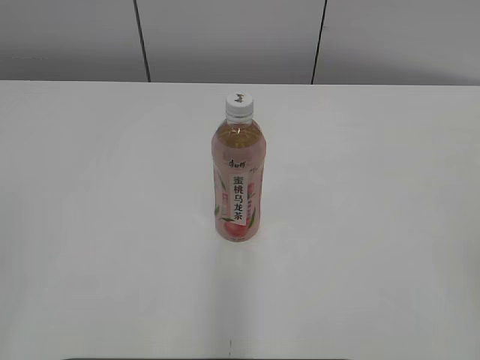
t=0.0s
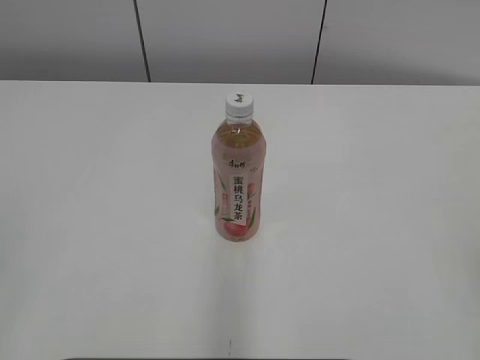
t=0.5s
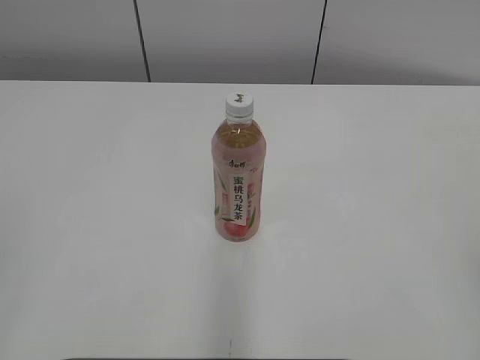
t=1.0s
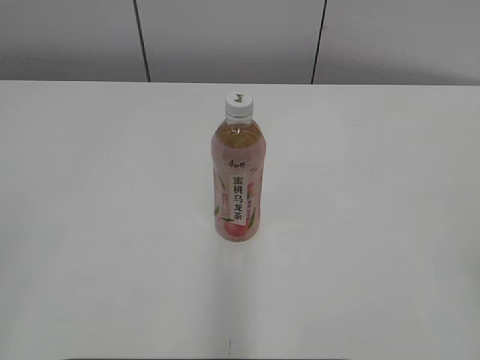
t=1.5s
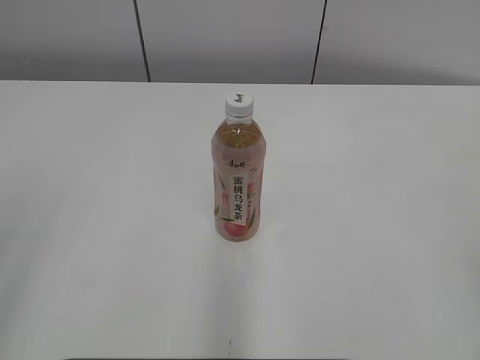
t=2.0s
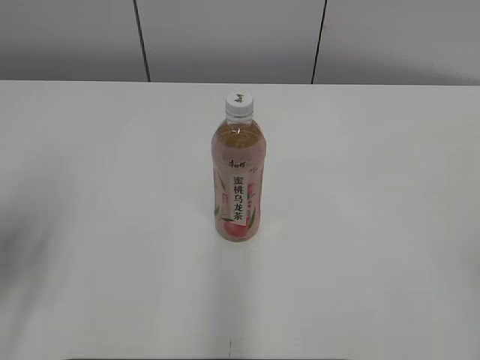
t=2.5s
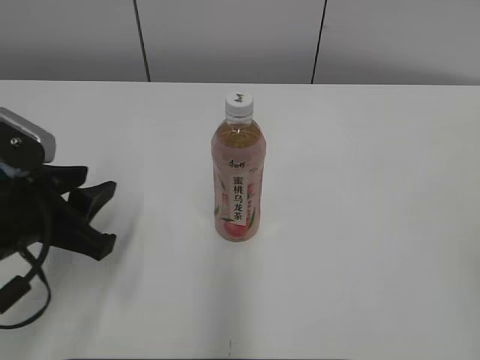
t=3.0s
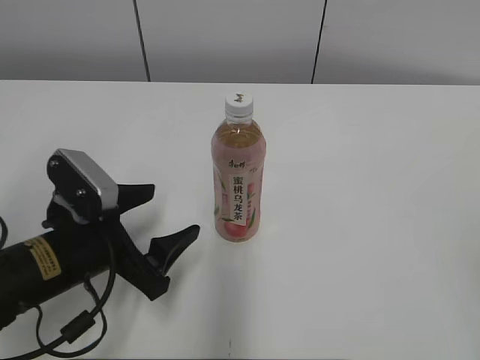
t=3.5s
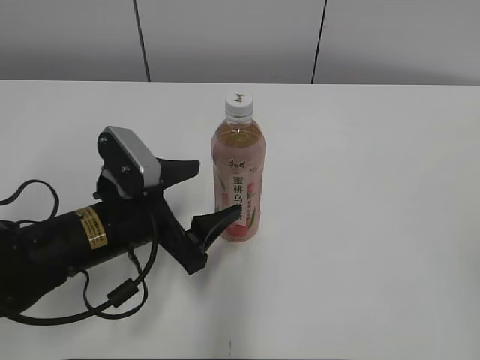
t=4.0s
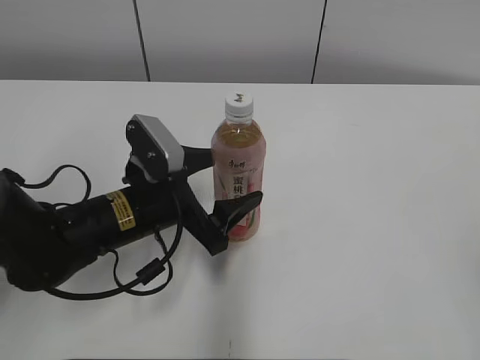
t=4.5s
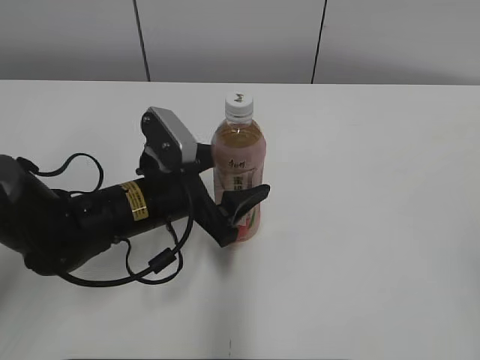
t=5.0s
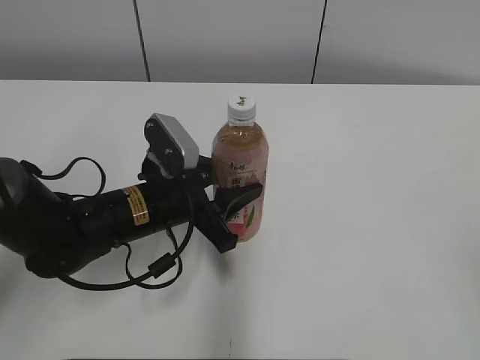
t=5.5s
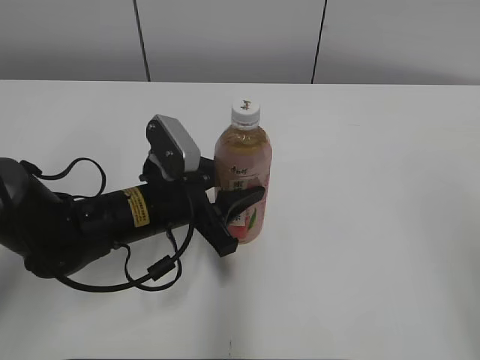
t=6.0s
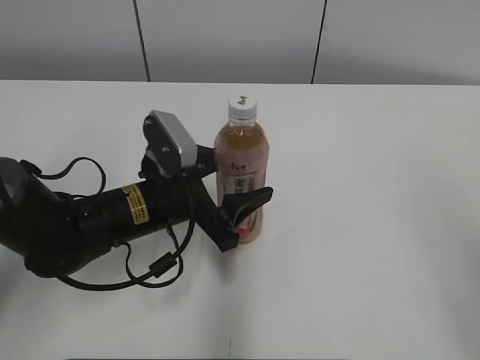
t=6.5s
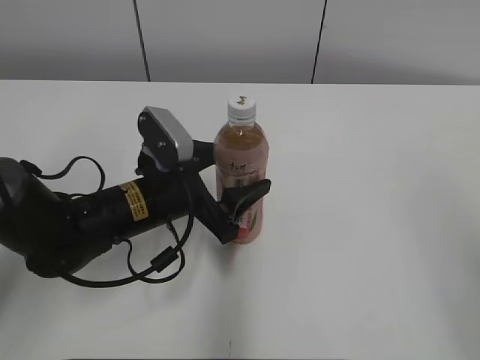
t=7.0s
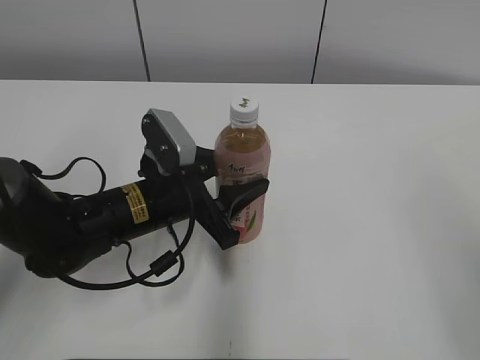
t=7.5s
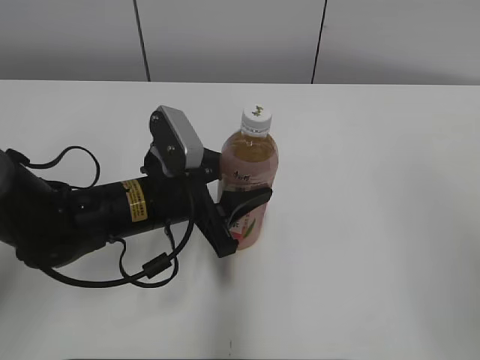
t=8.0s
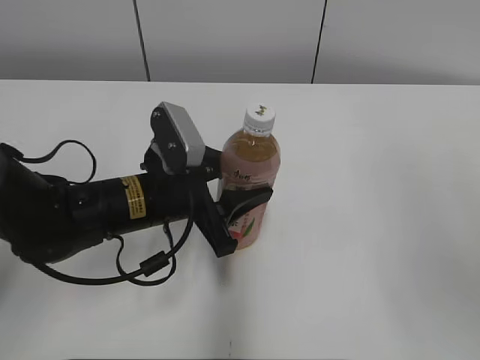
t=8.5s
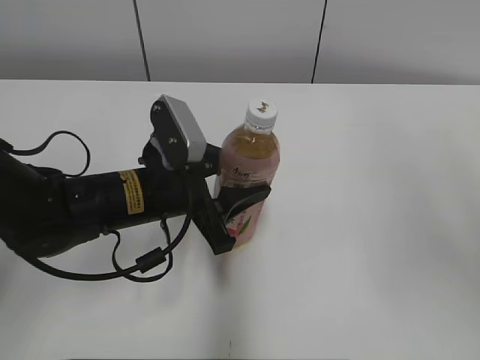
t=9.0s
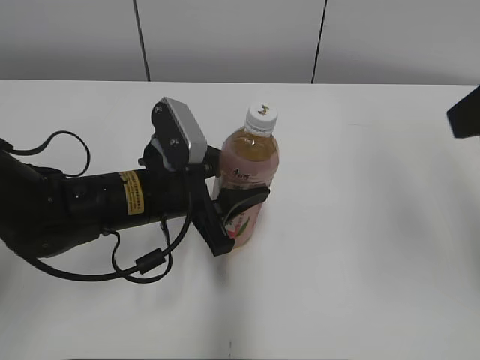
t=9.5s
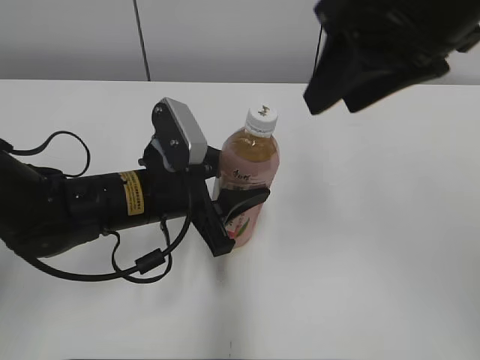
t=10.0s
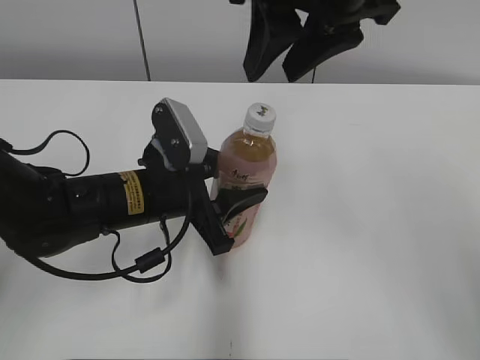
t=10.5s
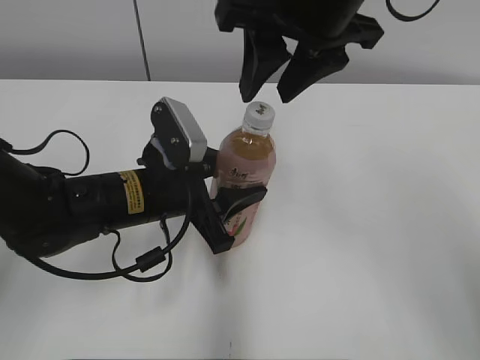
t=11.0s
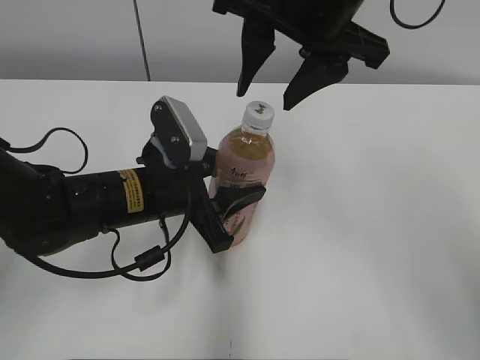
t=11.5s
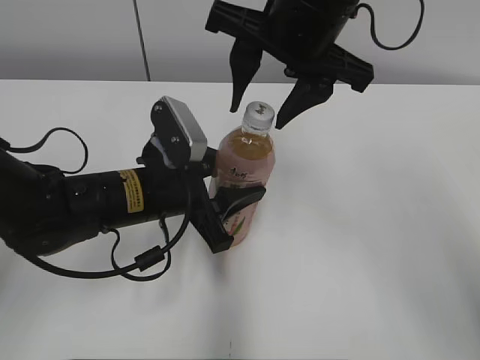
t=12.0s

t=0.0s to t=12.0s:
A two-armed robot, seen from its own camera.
Step, t=0.0s to t=5.0s: Grasp the bottle and move it to the center of the table with the left gripper.
t=2.0s to t=4.0s: The left gripper moves forward, downward and to the right, about 30 cm, and opens up.
t=4.0s to t=6.0s: The left gripper moves about 5 cm, and closes up, while the right gripper changes place by some 5 cm.
t=6.0s to t=8.0s: The left gripper opens, then closes once more.
t=8.0s to t=10.0s: The right gripper is displaced forward and to the left by roughly 25 cm, and closes.
t=10.0s to t=12.0s: The right gripper is displaced to the left and forward by some 10 cm.

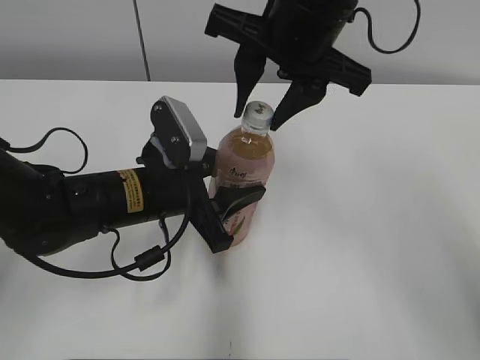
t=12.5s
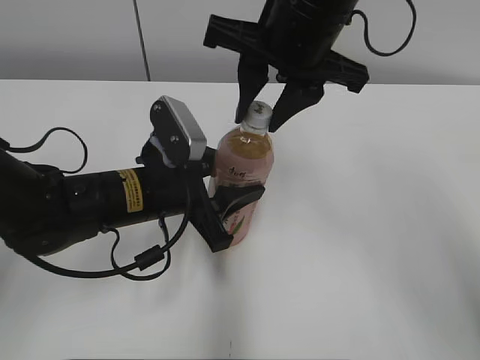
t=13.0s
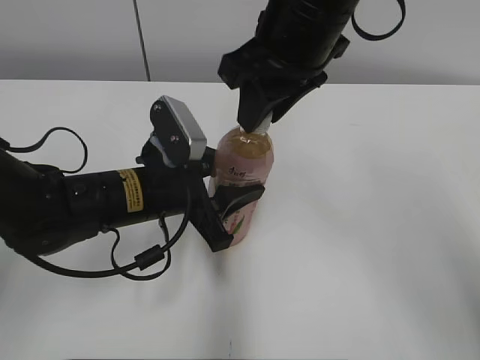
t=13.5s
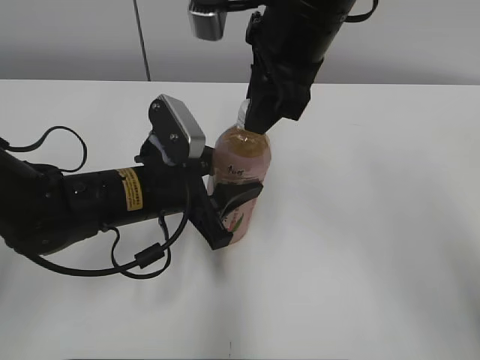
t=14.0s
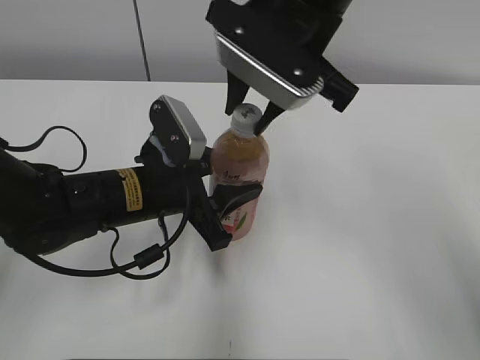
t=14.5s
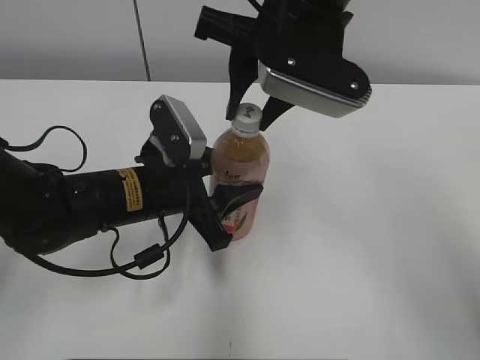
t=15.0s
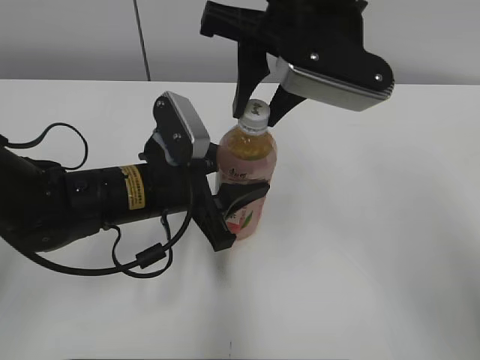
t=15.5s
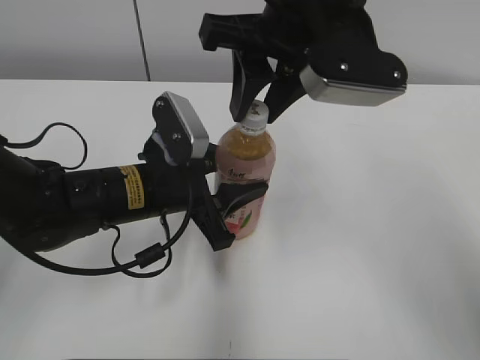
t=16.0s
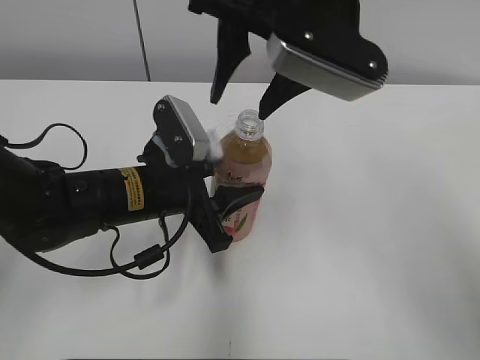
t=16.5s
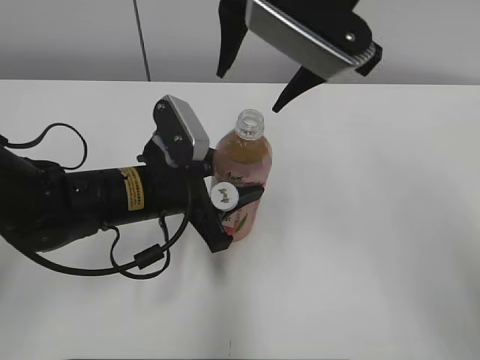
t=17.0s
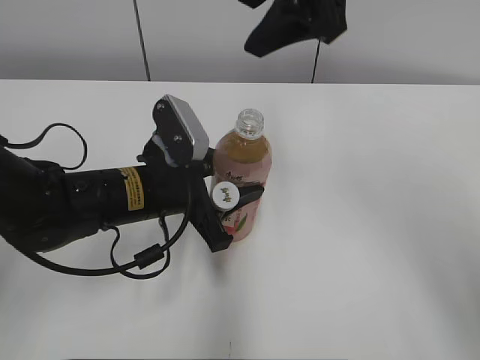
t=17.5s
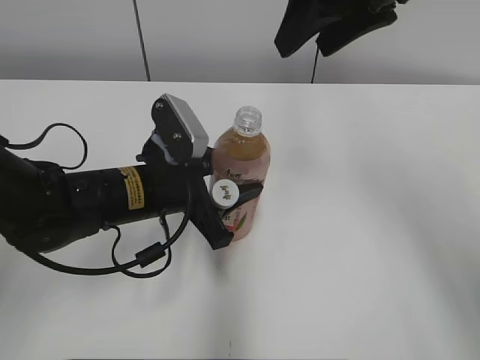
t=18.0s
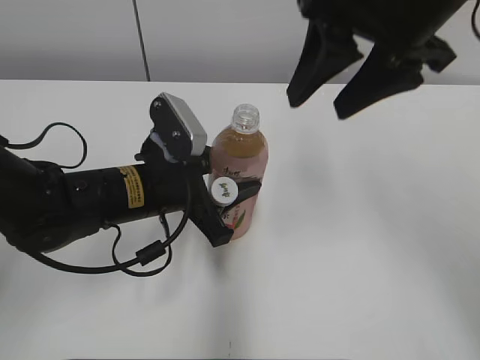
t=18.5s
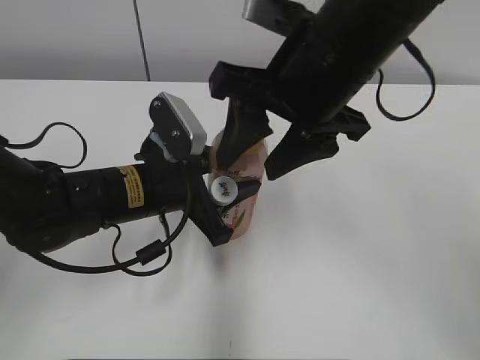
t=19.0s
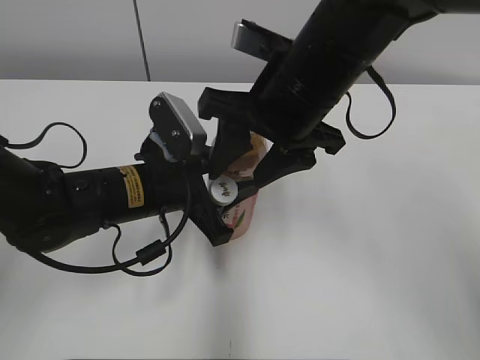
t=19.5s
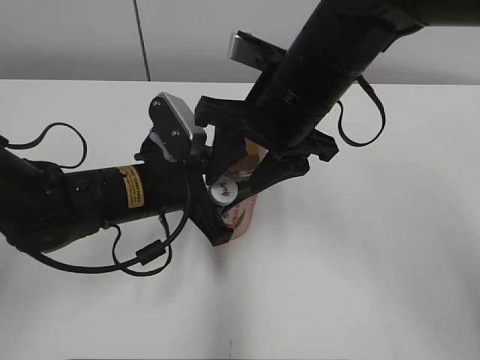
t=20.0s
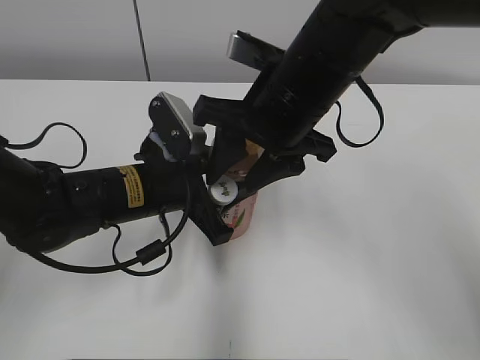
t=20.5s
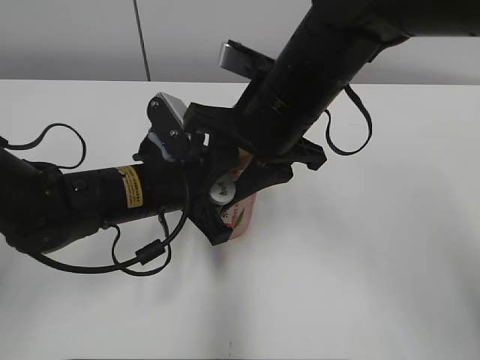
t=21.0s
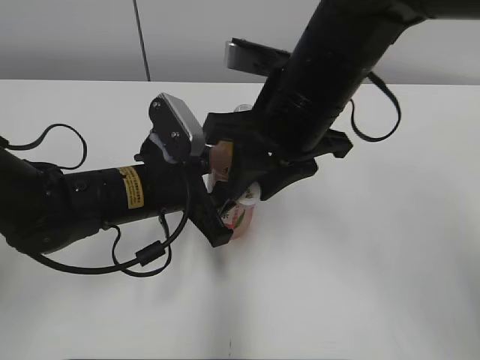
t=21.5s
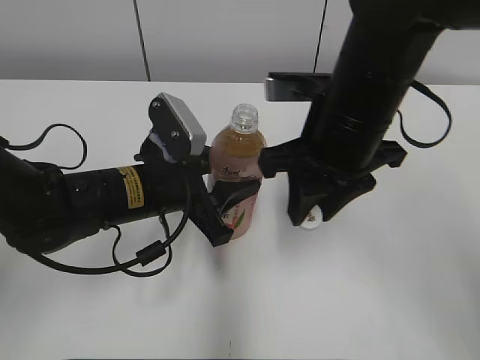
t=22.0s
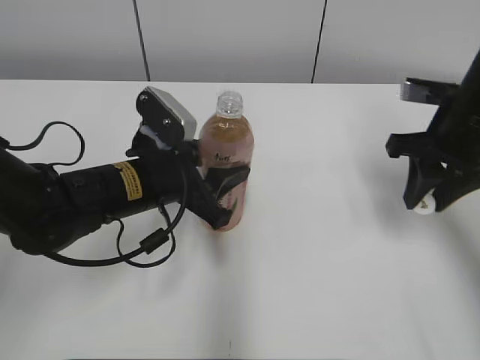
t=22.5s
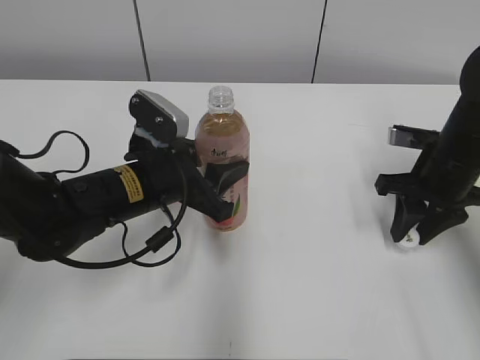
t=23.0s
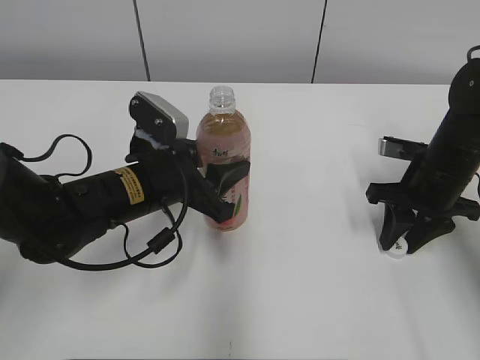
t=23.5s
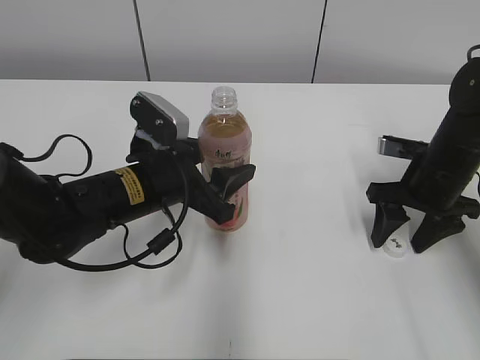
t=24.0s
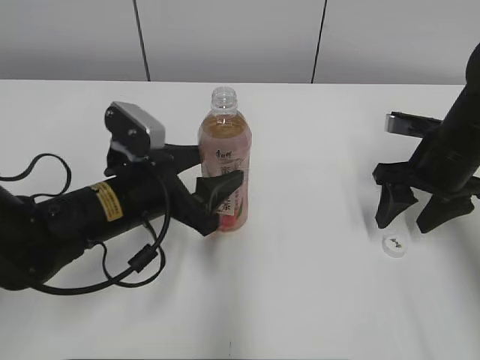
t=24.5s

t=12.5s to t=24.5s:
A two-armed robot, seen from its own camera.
Step, t=12.5s to t=16.0s: Unscrew the bottle cap with the right gripper while holding the bottle with the left gripper.
Step, t=16.5s to t=23.5s: Place the bottle cap on the table with the right gripper.
t=14.5s to t=16.5s: The right gripper opens its fingers.
t=16.5s to t=18.5s: The right gripper moves to the right, about 10 cm.
t=18.5s to t=20.5s: The right gripper shifts some 10 cm downward and to the left.
t=20.5s to t=22.5s: The right gripper moves to the right, some 20 cm, and closes up.
t=22.5s to t=24.5s: The left gripper opens. Meanwhile the right gripper goes roughly 5 cm downward, and opens.

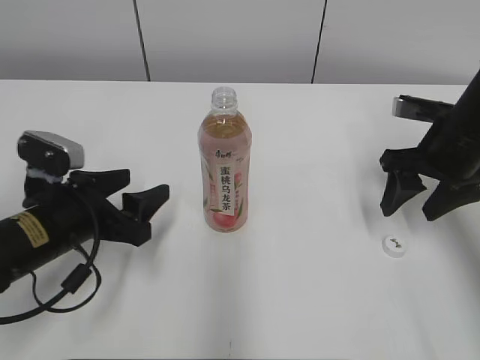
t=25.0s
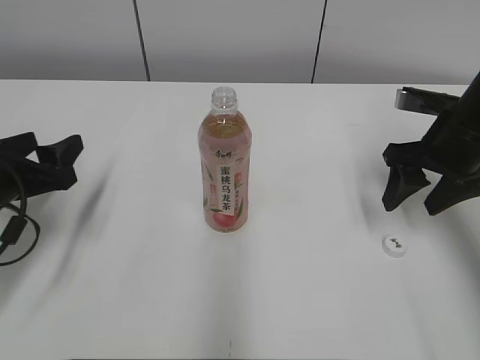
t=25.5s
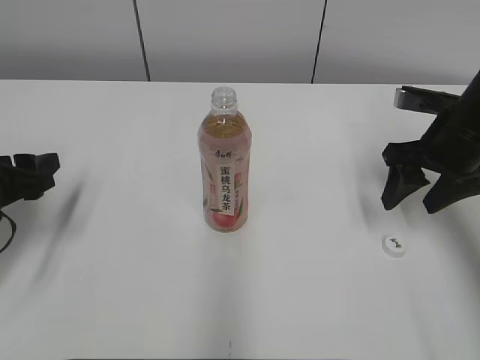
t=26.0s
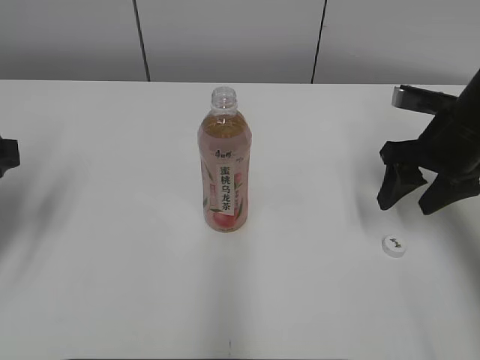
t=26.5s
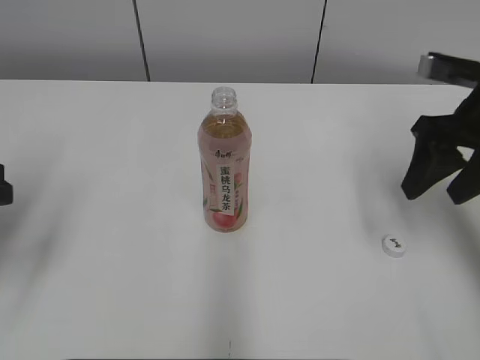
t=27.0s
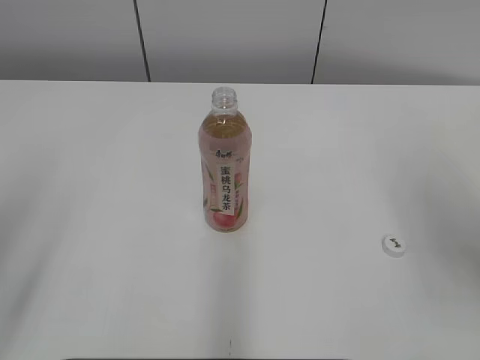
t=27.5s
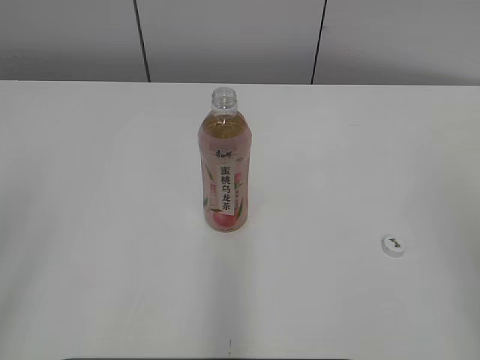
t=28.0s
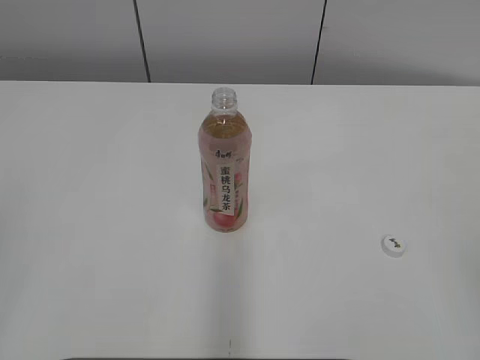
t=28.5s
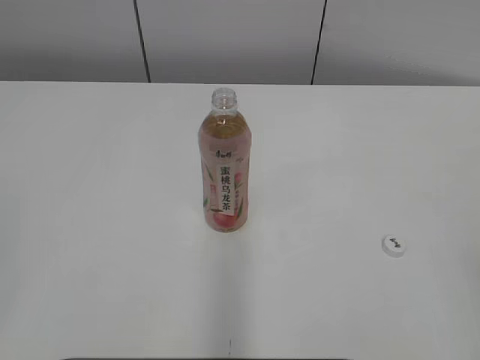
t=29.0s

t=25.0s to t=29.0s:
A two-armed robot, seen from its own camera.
t=25.0s to t=27.0s: The left gripper moves upward and to the left, some 15 cm; the right gripper heads upward, covering some 5 cm.
t=27.0s to t=29.0s: Both grippers move backward, approximately 25 cm. The left gripper closes, while the right gripper closes.
